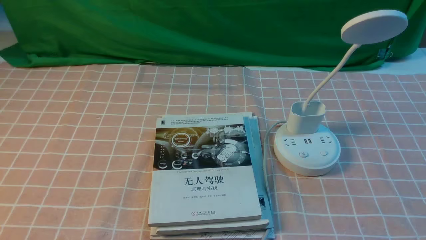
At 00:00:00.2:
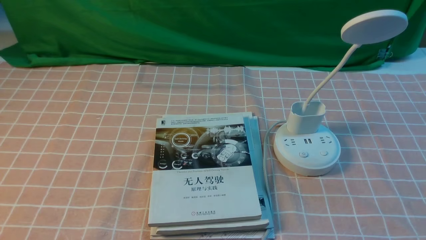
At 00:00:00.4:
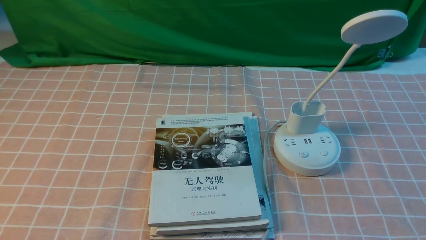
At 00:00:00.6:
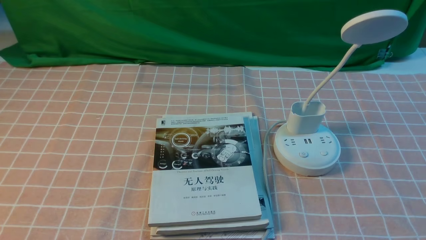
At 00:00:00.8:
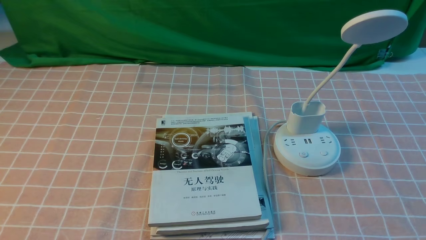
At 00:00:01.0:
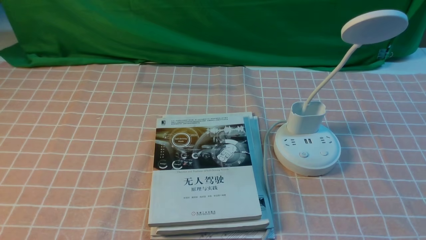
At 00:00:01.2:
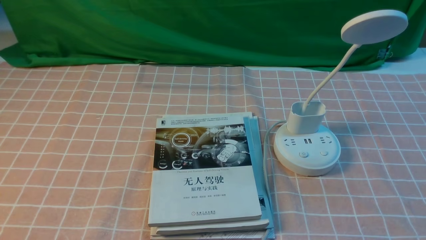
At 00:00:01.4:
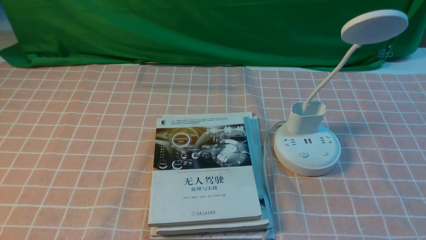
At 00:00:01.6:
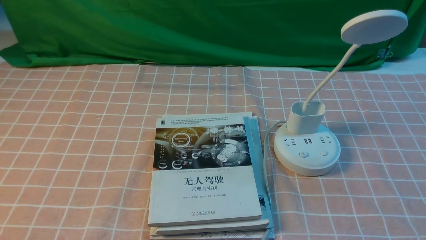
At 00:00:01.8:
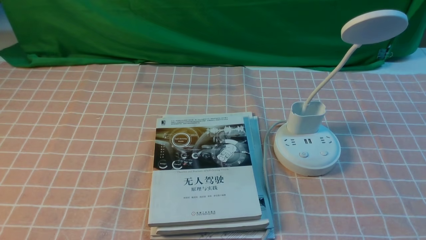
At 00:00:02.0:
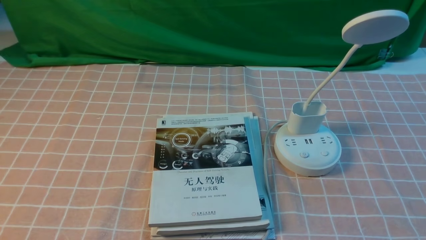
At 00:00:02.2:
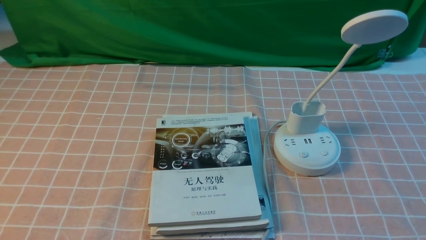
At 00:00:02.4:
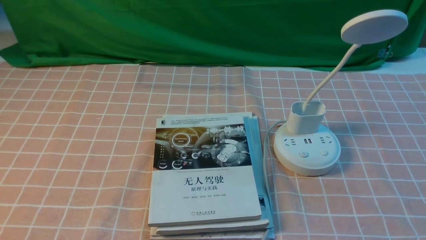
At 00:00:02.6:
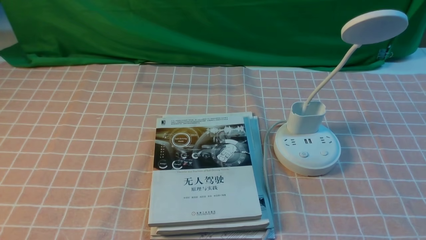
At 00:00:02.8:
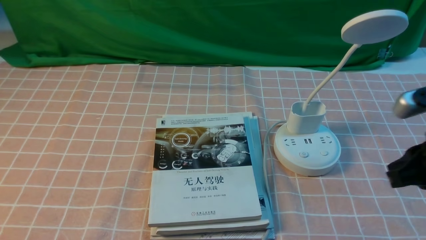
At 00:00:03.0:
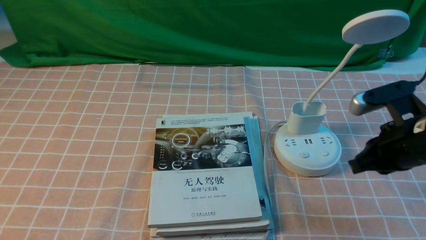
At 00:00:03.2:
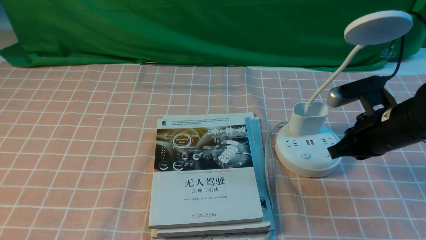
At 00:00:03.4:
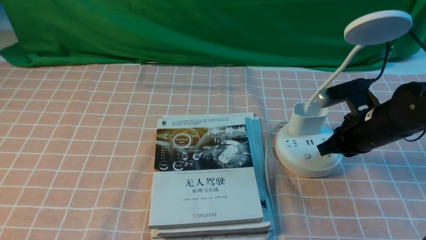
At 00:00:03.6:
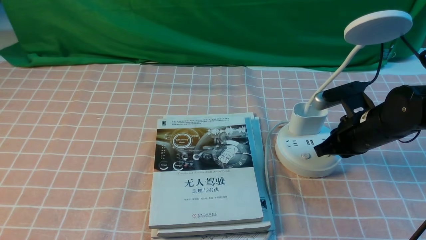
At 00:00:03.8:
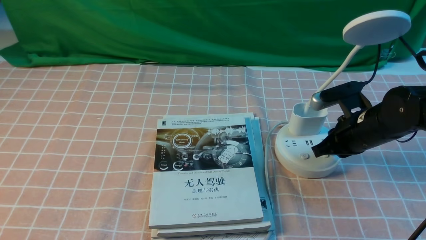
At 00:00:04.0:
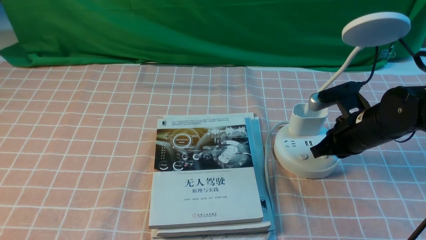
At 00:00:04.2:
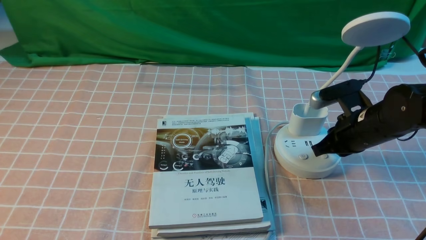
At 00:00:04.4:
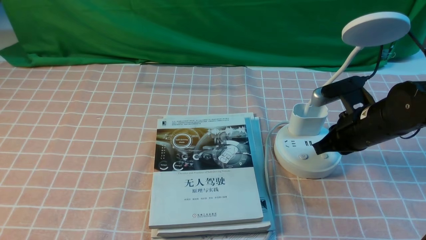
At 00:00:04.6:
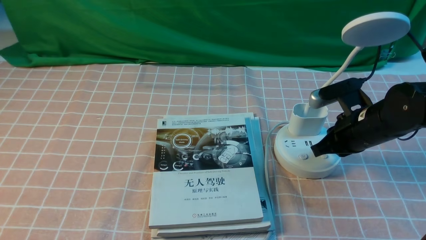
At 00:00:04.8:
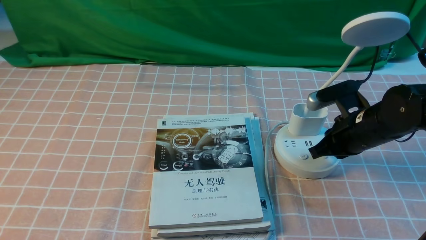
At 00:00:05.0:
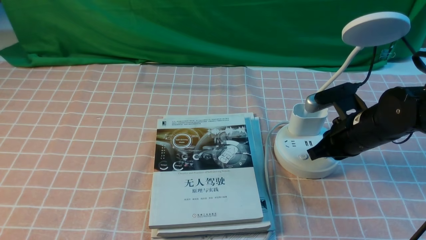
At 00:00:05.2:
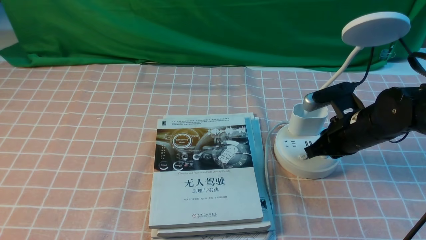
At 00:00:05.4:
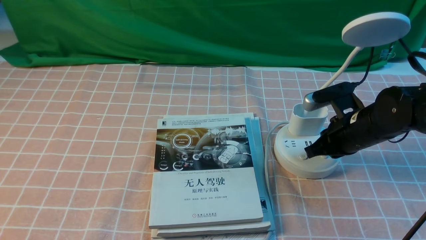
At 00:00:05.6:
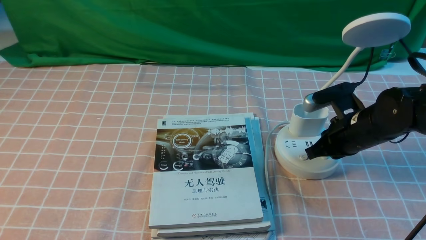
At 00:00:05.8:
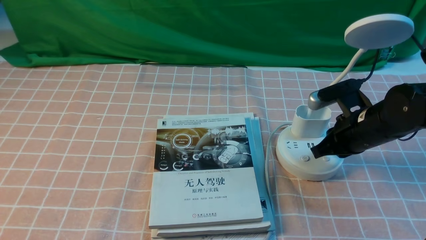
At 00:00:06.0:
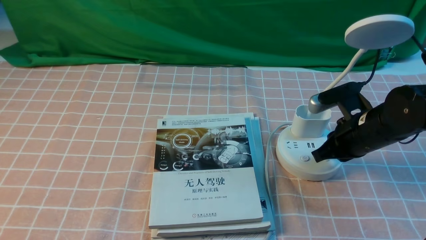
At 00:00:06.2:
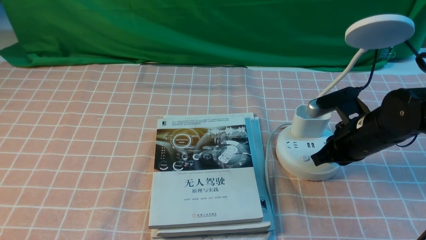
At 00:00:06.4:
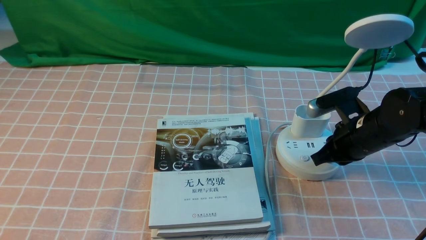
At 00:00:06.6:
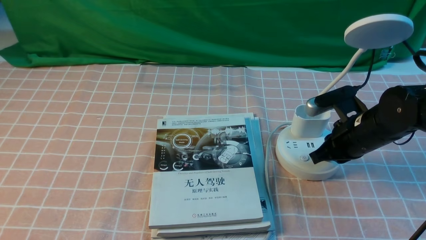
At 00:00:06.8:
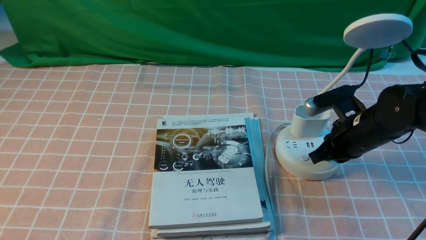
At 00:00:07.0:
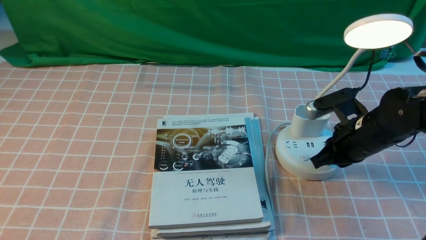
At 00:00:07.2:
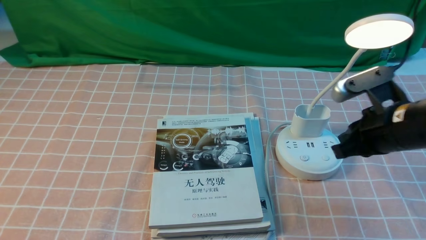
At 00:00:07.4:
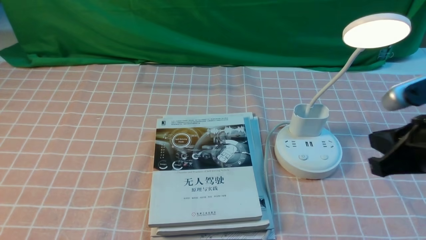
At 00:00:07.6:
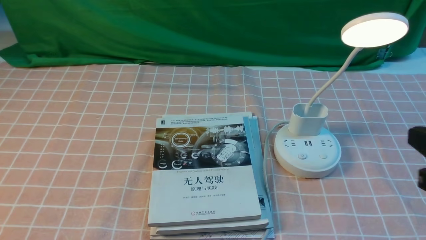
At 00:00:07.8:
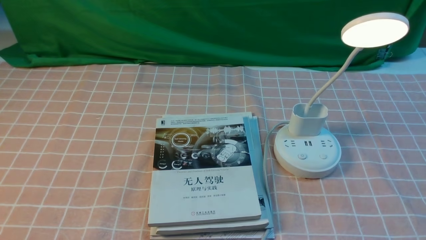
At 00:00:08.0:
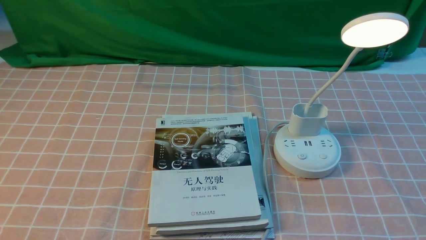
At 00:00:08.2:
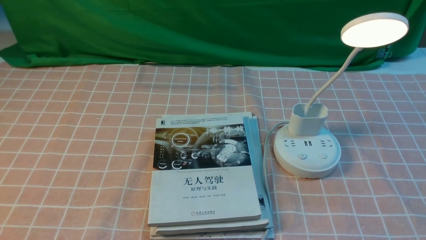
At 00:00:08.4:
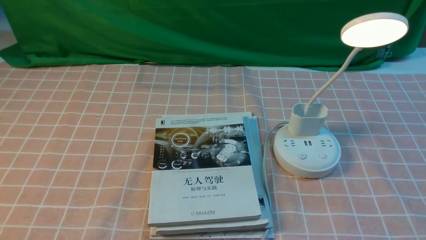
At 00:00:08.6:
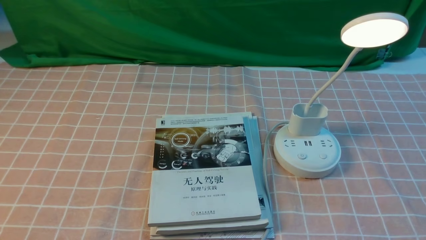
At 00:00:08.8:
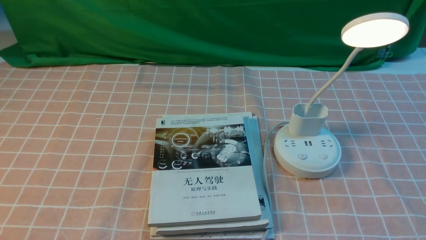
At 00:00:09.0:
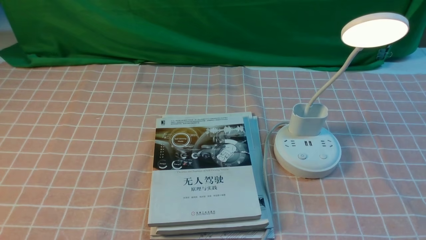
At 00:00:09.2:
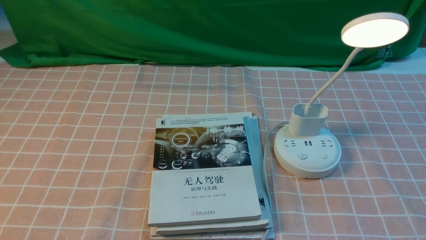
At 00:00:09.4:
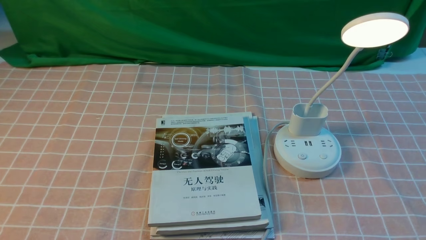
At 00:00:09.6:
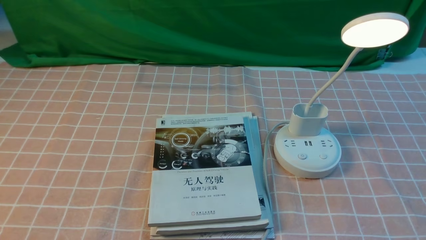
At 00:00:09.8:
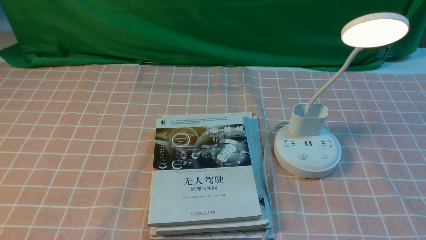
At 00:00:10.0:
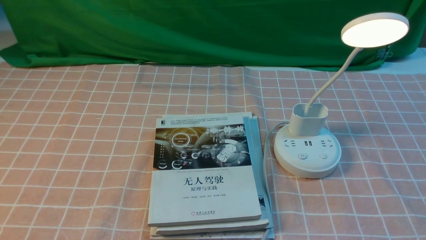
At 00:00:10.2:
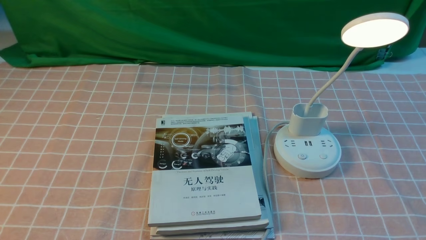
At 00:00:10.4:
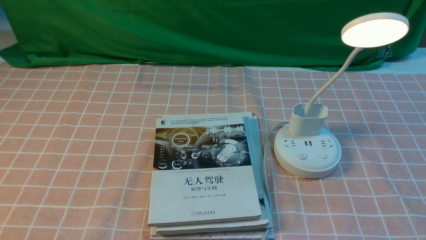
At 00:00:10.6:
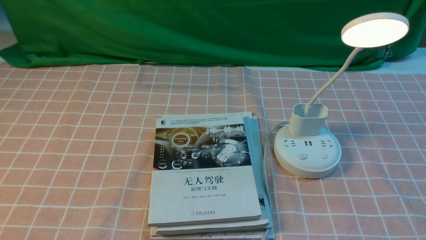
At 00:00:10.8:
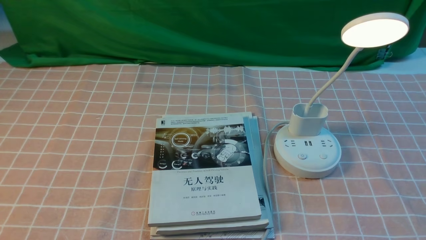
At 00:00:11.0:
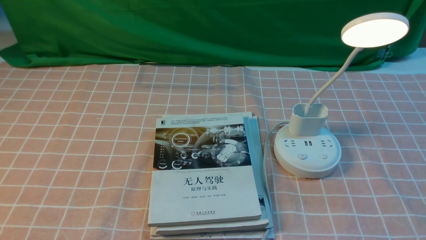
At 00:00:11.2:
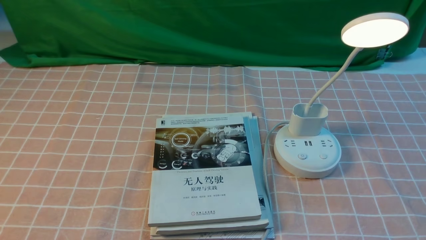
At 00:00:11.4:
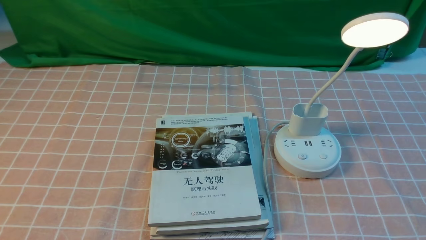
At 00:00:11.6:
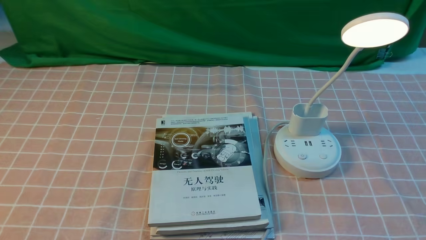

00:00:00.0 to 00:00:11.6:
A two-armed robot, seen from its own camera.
Step, 00:00:00.0 to 00:00:07.0: use the right arm to press the button switch on the lamp holder.
00:00:01.4 to 00:00:02.8: The right gripper is displaced forward and upward by roughly 15 cm, and closes up.
00:00:02.8 to 00:00:04.4: The right gripper is displaced forward and downward by some 20 cm.
00:00:04.4 to 00:00:05.8: The grippers stay close to where they were, moving slightly.
00:00:05.8 to 00:00:07.2: The right gripper ends up some 5 cm from where it was.
00:00:07.2 to 00:00:08.8: The right gripper shifts about 25 cm backward and to the right, and opens.
00:00:10.2 to 00:00:11.6: Neither gripper changes place.

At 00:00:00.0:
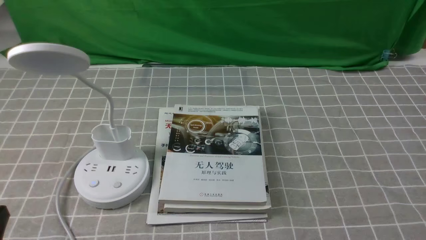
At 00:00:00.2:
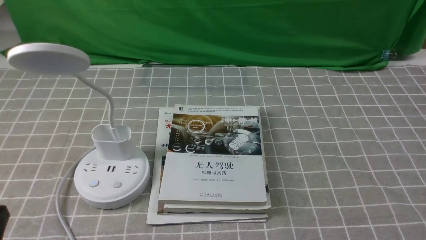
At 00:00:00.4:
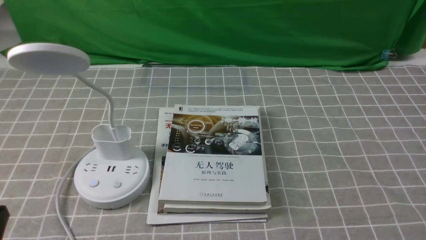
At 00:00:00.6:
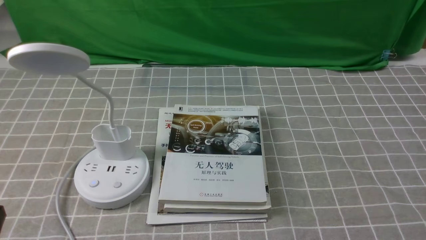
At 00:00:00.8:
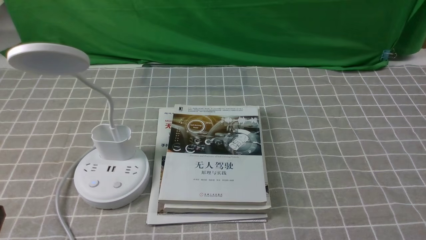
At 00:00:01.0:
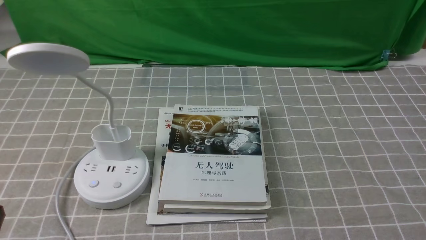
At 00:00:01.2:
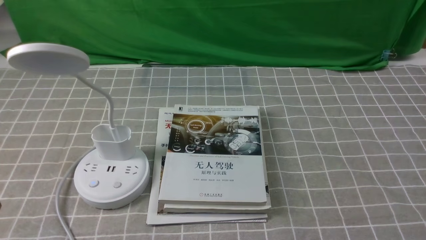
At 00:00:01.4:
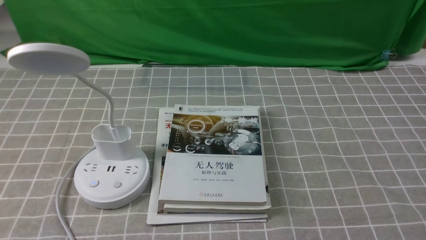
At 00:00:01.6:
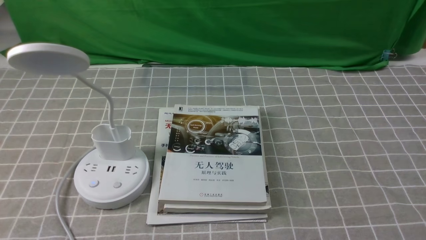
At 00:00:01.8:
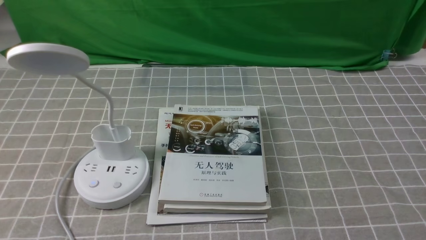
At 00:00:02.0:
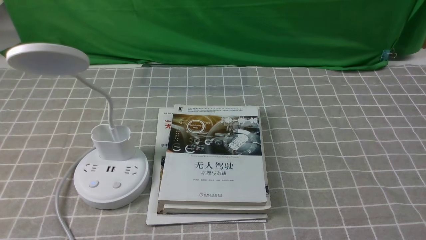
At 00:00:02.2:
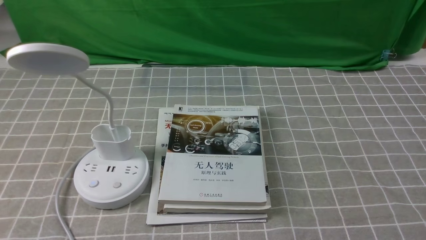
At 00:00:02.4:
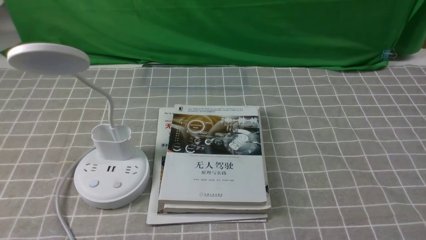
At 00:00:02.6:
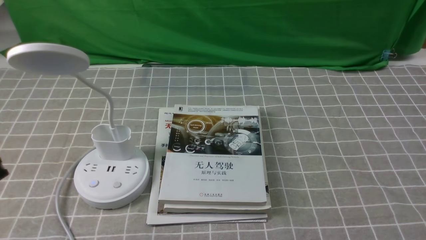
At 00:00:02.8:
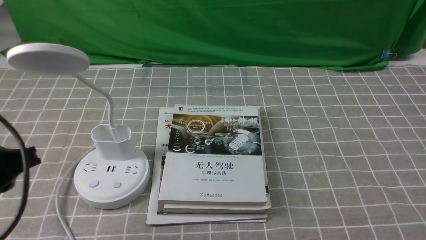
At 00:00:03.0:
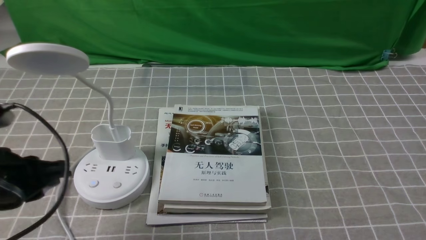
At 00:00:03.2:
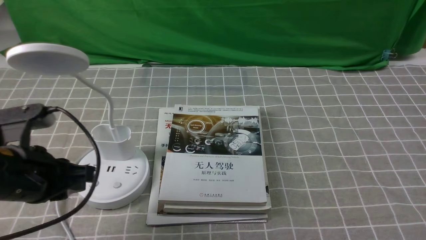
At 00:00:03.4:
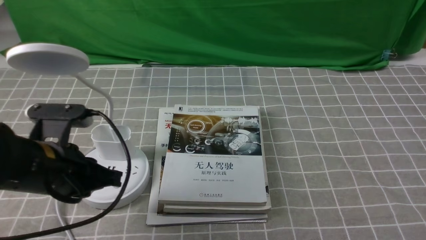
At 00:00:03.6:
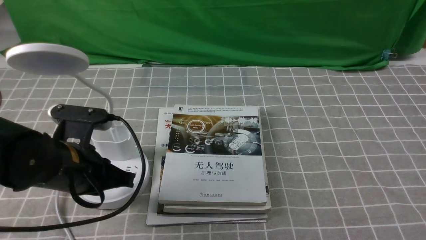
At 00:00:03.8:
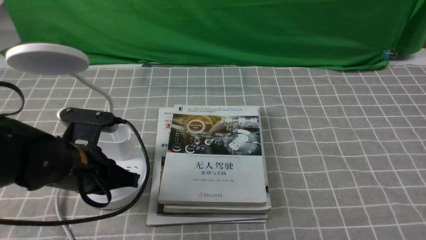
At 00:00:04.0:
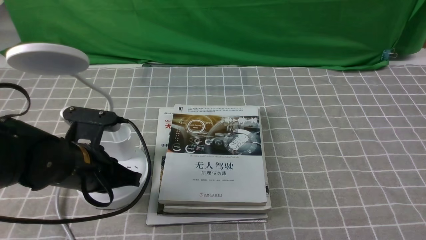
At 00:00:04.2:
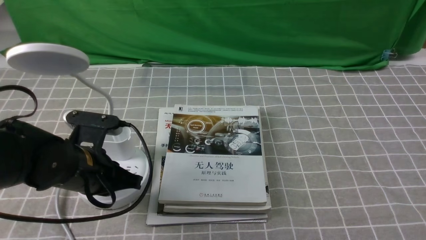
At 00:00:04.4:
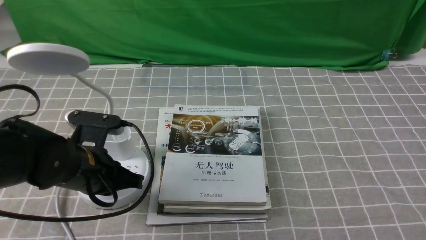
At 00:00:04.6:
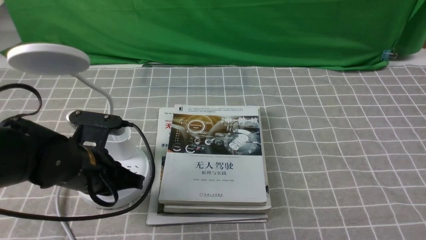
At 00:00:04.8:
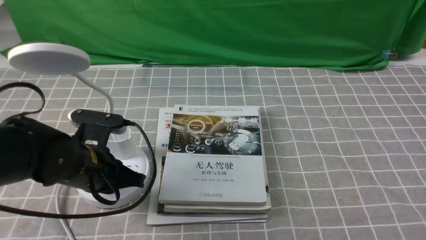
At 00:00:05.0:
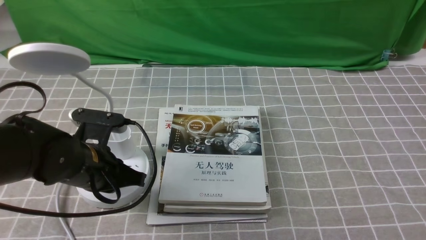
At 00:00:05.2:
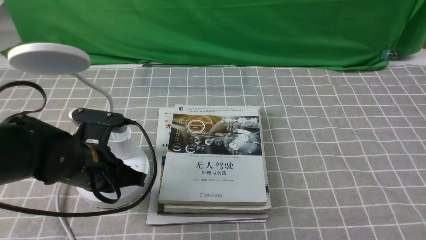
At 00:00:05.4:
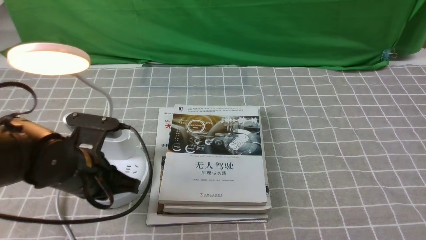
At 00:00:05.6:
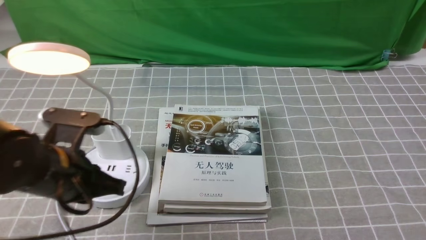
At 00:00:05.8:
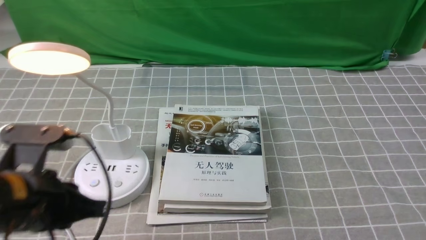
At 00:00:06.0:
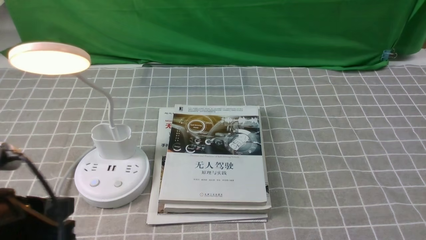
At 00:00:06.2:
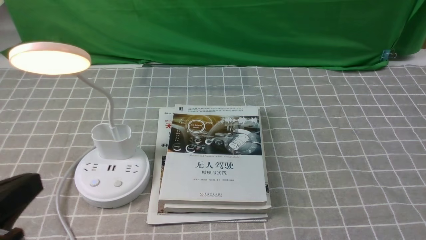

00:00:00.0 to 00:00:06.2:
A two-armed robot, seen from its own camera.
Step, 00:00:00.0 to 00:00:05.4: use the left arm to press the button switch on the lamp holder.
00:00:01.6 to 00:00:03.2: The left gripper moves forward, approximately 15 cm.
00:00:03.2 to 00:00:04.6: The left gripper shifts some 10 cm downward and forward.
00:00:04.6 to 00:00:06.2: The left gripper goes approximately 20 cm backward and upward.
